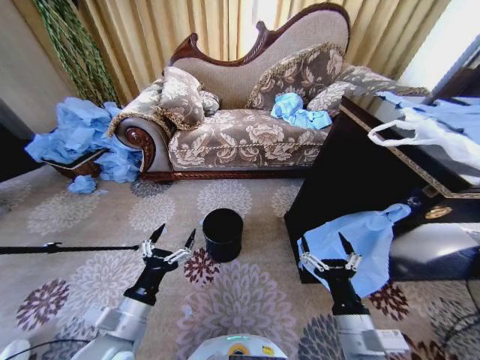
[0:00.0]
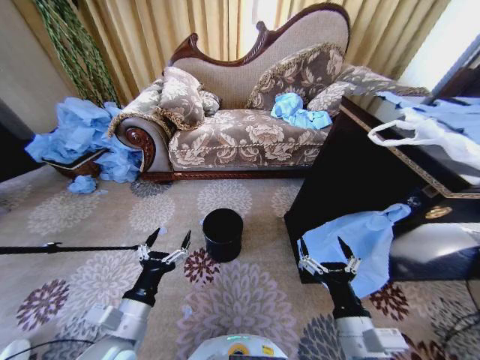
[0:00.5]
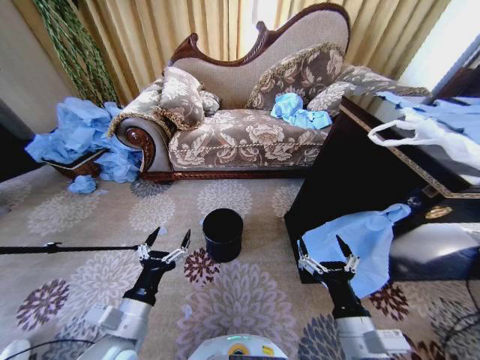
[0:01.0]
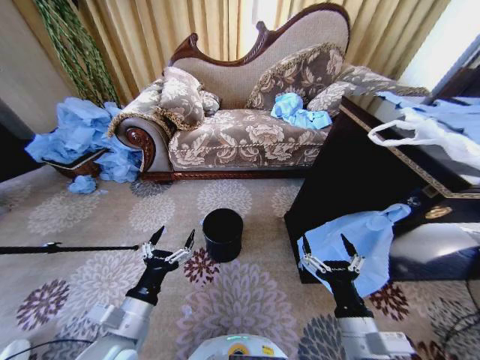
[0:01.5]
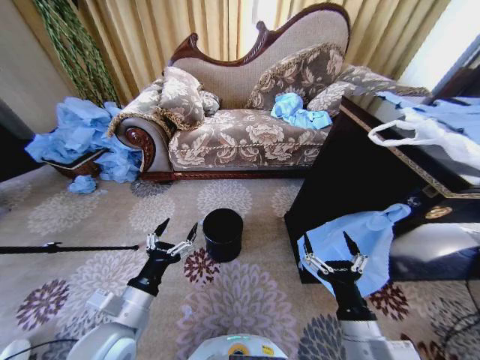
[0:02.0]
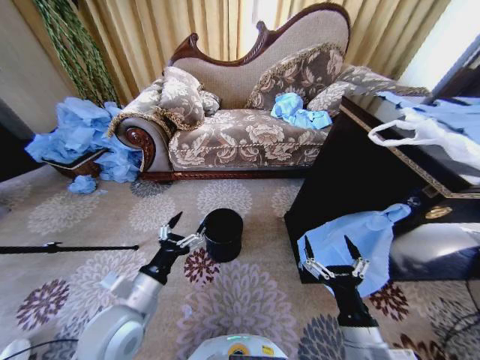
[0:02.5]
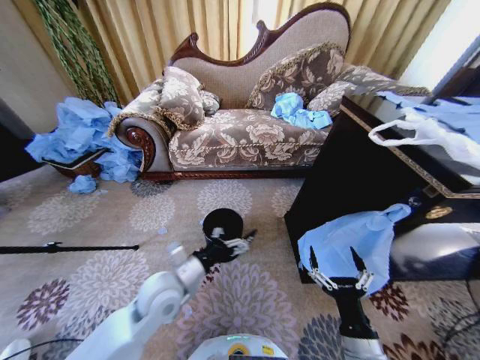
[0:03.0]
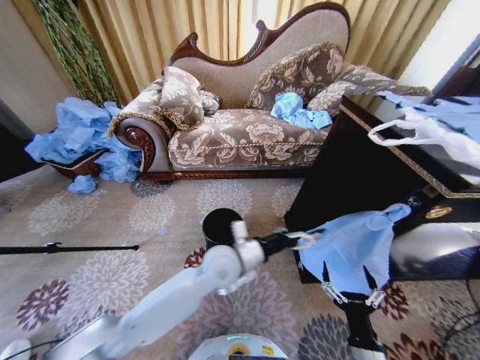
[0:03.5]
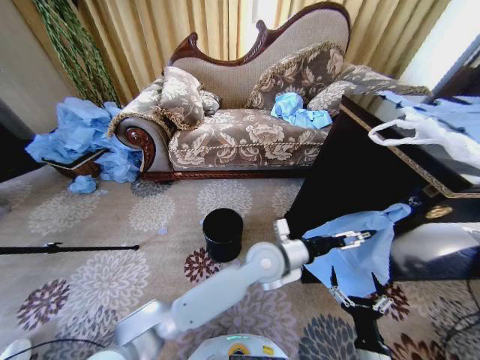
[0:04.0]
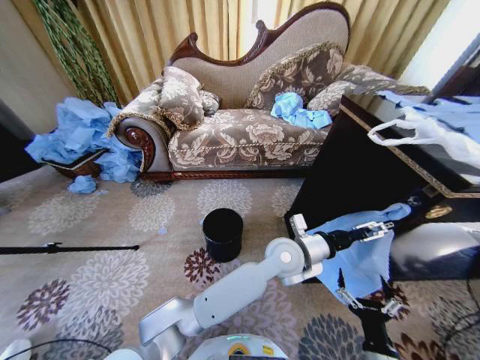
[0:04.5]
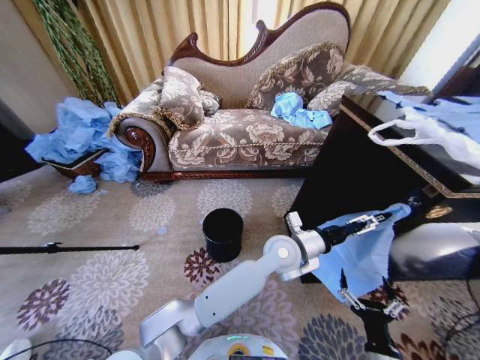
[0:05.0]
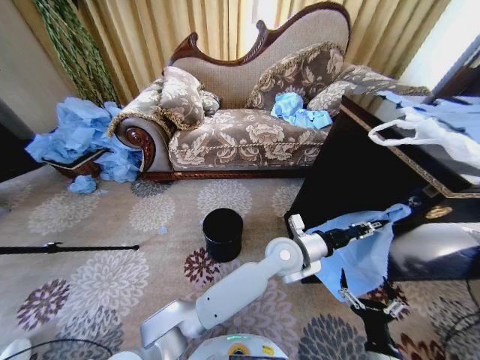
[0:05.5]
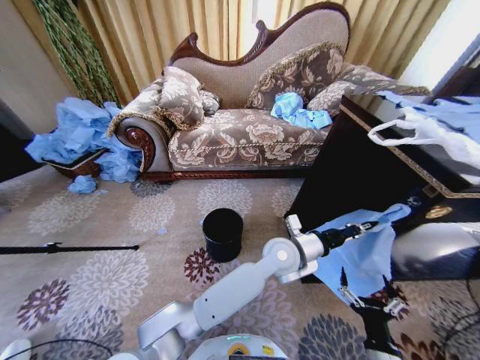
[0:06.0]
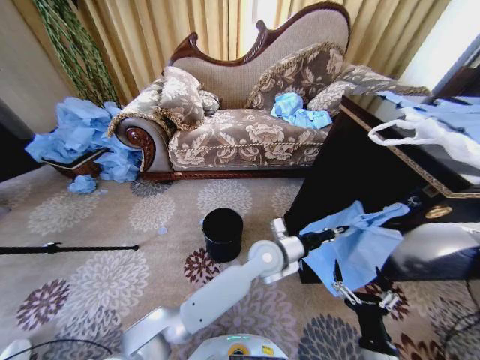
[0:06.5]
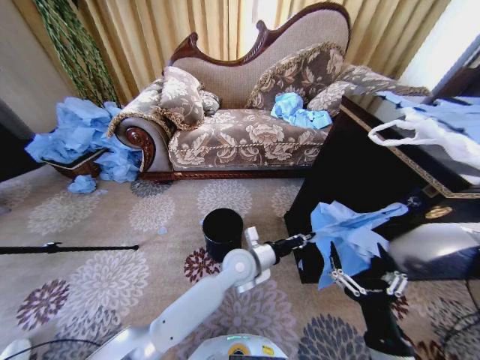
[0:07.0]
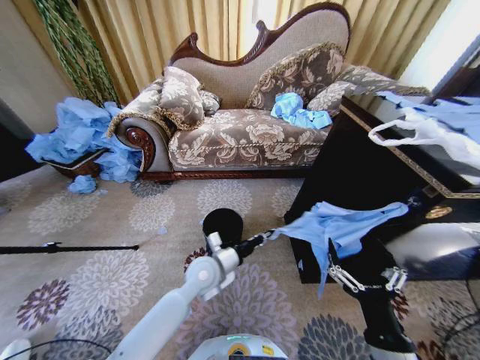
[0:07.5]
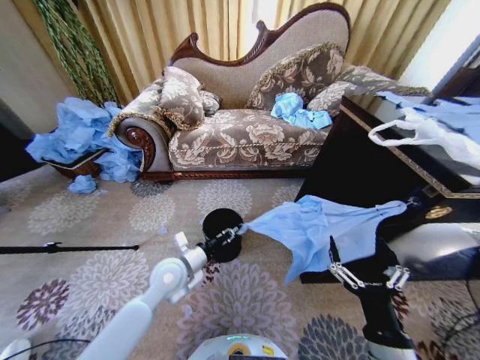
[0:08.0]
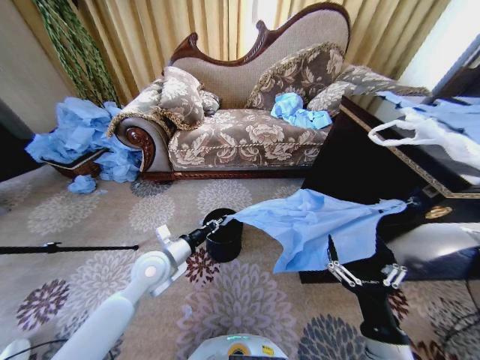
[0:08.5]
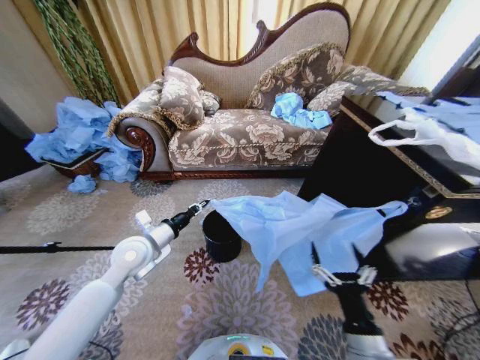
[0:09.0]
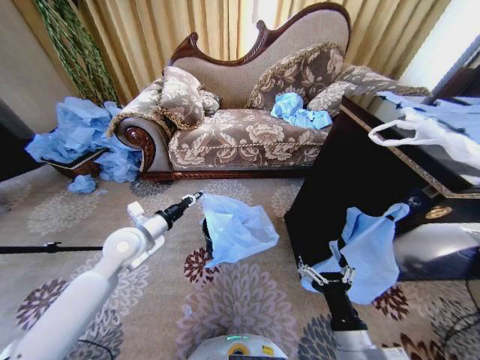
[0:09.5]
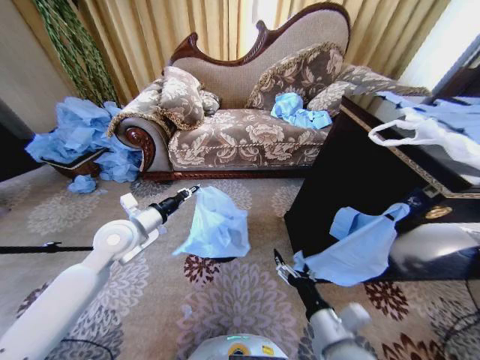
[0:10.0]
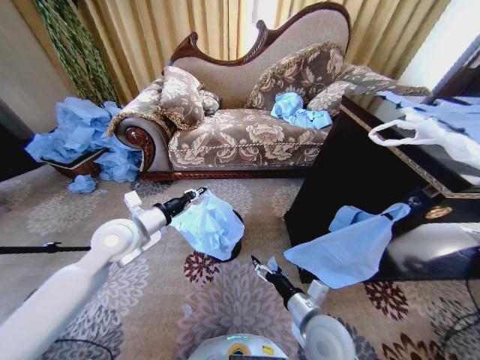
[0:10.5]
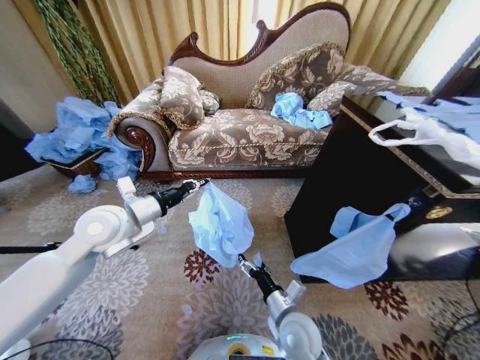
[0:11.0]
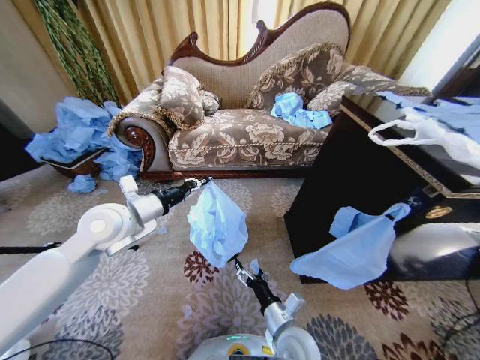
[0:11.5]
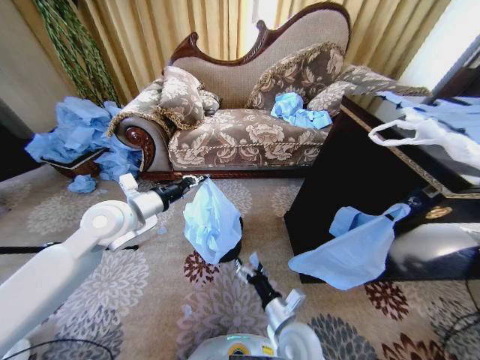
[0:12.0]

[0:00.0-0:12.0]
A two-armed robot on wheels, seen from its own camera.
Task of the whole recording: Place a garbage bag over the trash bin.
0:02.0 to 0:04.0: The left gripper is displaced to the right and forward by roughly 35 cm. The right gripper moves downward and to the right, roughly 15 cm.
0:04.0 to 0:06.0: The left gripper closes up.
0:06.0 to 0:08.0: The left gripper shifts roughly 30 cm to the left. Meanwhile the right gripper is displaced upward by some 10 cm.
0:08.0 to 0:10.0: The right gripper moves forward, about 5 cm, while the left gripper shifts roughly 15 cm to the left and upward.
0:10.0 to 0:12.0: The left gripper shifts roughly 5 cm upward, while the right gripper shifts about 15 cm downward and to the left.

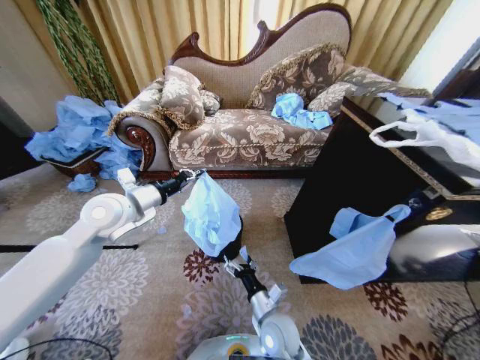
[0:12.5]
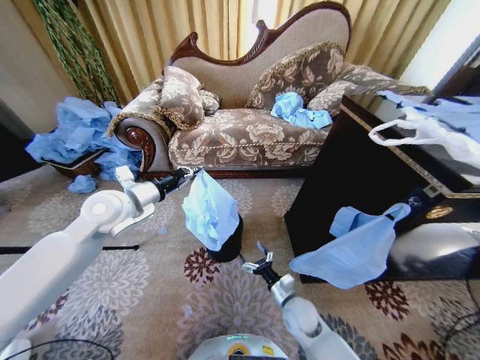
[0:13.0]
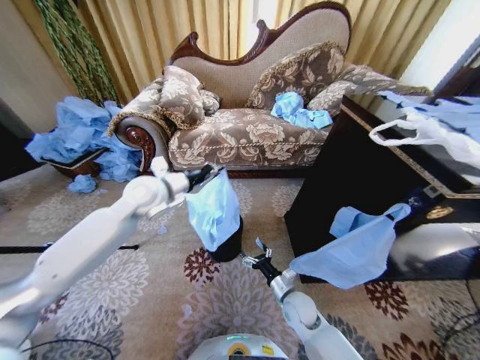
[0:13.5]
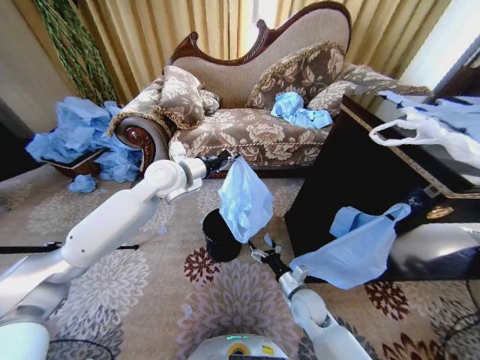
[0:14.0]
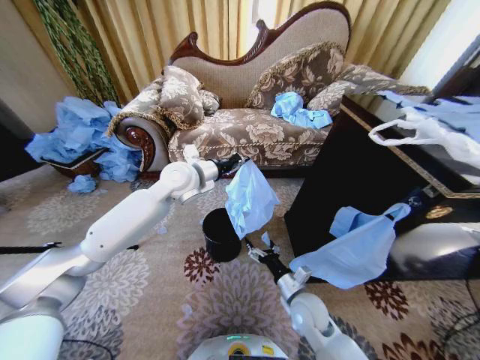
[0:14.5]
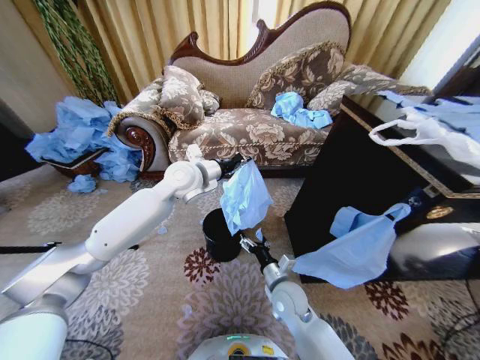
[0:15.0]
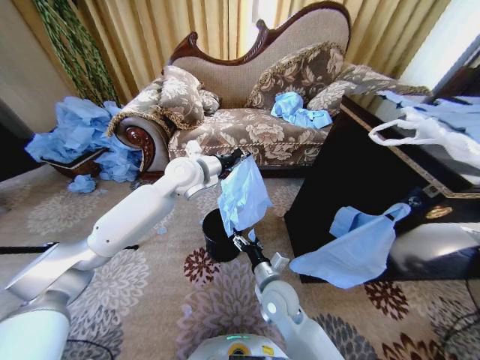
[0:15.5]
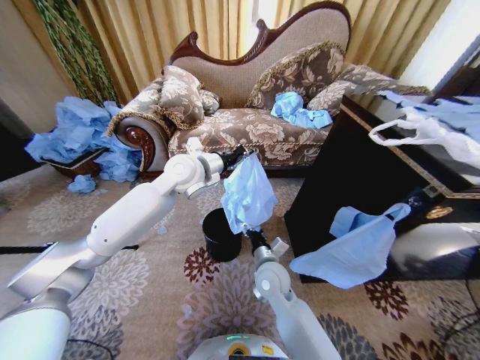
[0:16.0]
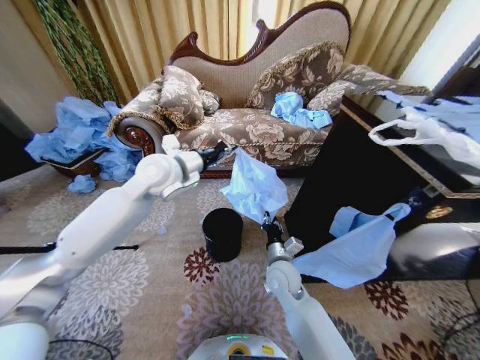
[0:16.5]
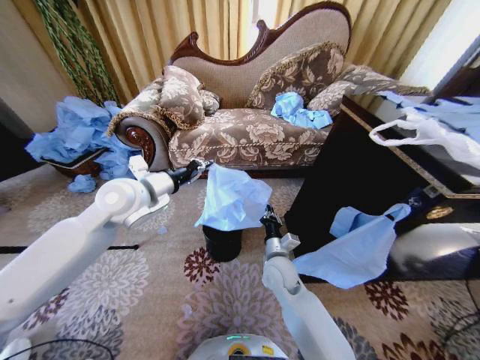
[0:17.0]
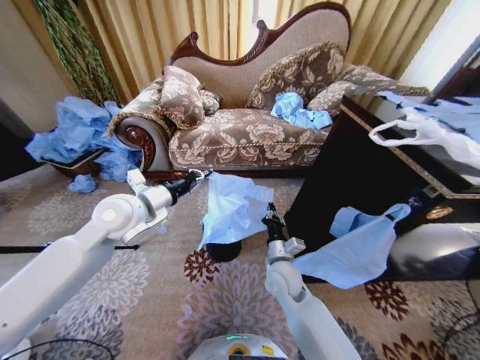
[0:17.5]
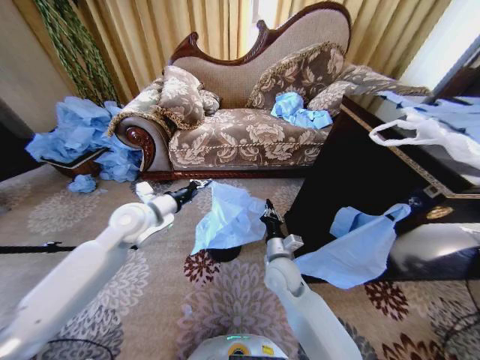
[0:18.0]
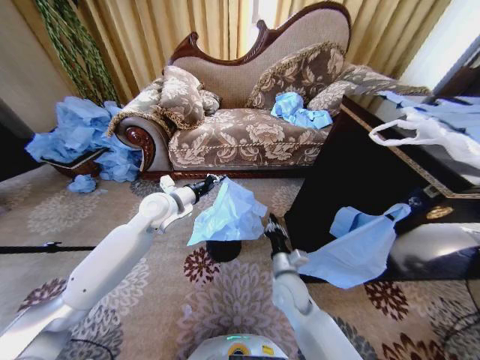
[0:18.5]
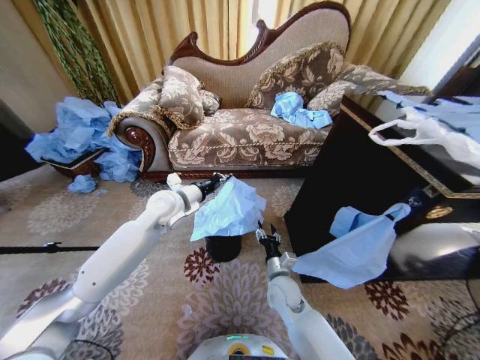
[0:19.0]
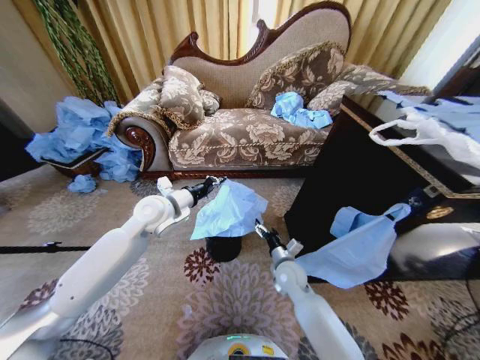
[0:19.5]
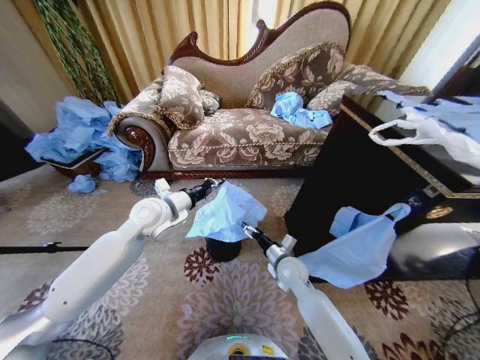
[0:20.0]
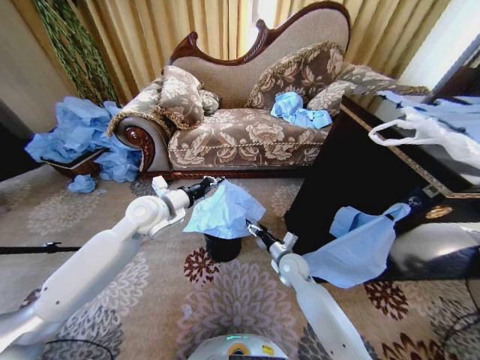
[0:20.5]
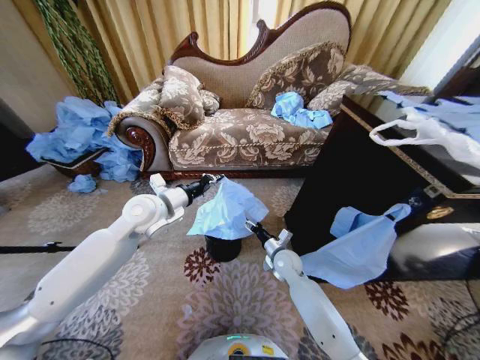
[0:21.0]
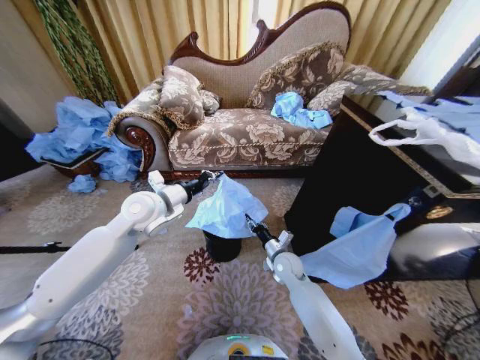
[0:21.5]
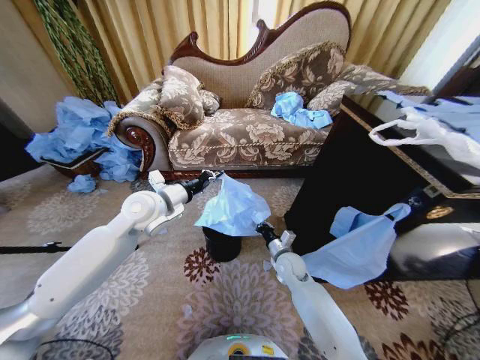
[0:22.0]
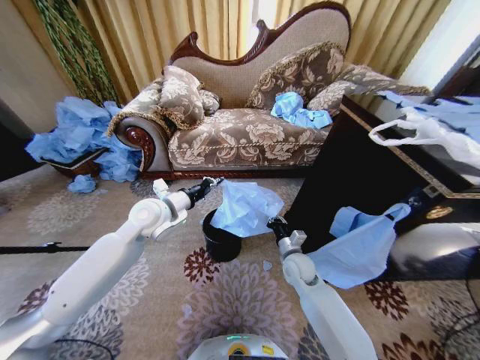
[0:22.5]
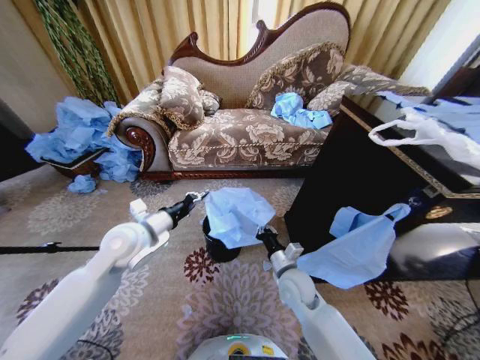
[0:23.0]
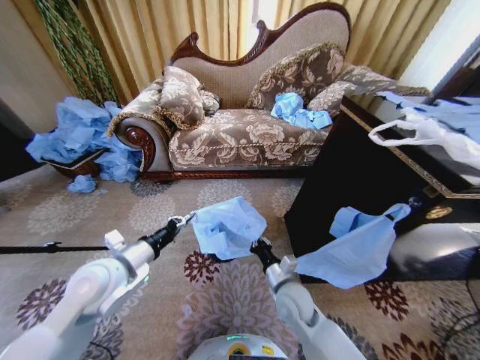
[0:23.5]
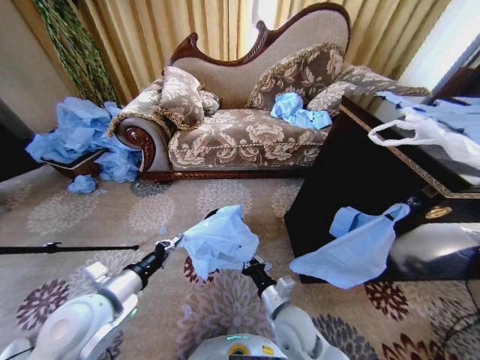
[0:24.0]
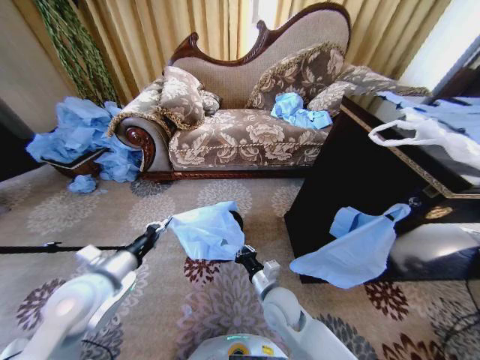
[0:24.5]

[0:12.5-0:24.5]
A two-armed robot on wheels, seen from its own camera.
Task of the whole recording: Place a garbage bag over the trash bin.
0:12.5 to 0:14.5: The left gripper heads to the right and forward, covering roughly 15 cm. The right gripper shifts roughly 10 cm to the right.
0:14.5 to 0:16.5: The right gripper is displaced to the left, forward and upward by roughly 10 cm, and closes its fingers. Meanwhile the left gripper shifts by approximately 5 cm.
0:16.5 to 0:18.5: The left gripper goes roughly 10 cm downward.
0:18.5 to 0:20.5: The right gripper travels forward by about 10 cm, and opens its fingers.
0:20.5 to 0:22.5: The right gripper closes its fingers.
0:22.5 to 0:24.5: Both grippers travel together backward and to the left, some 15 cm.

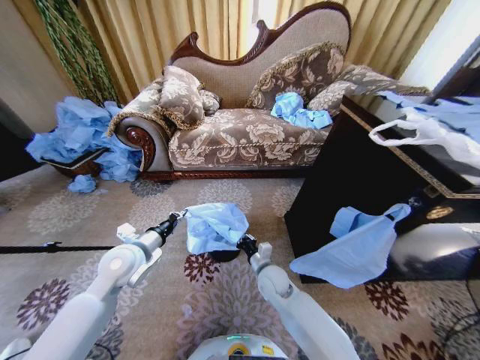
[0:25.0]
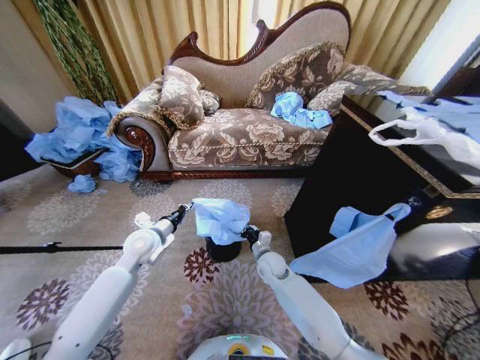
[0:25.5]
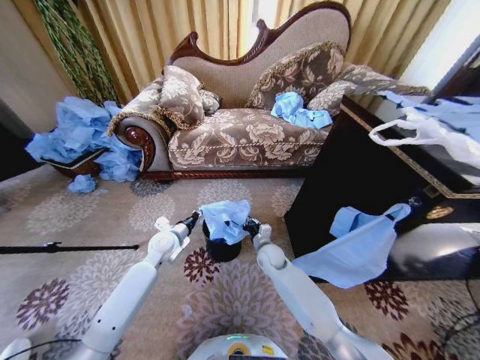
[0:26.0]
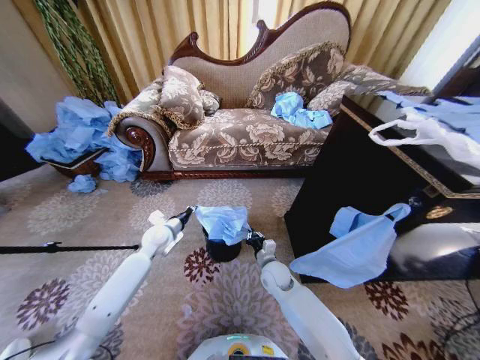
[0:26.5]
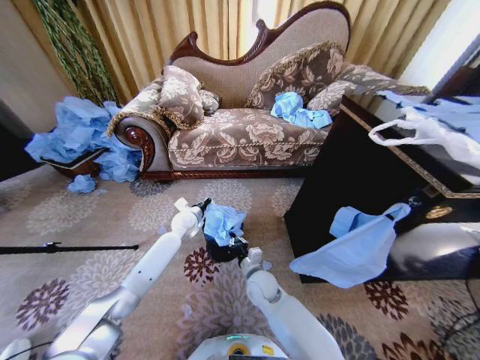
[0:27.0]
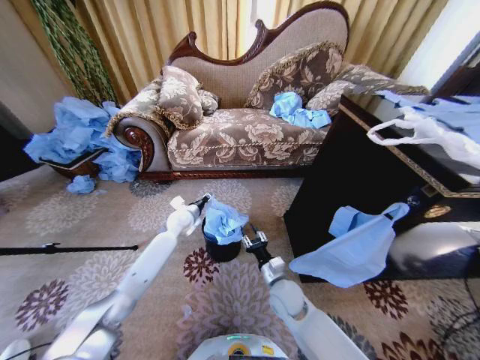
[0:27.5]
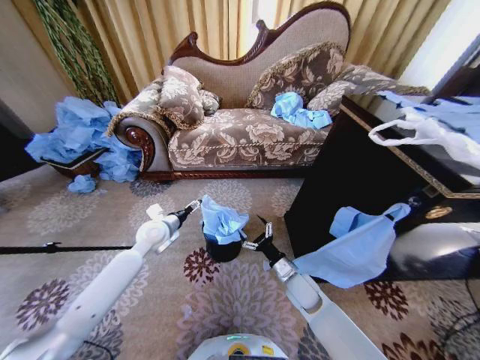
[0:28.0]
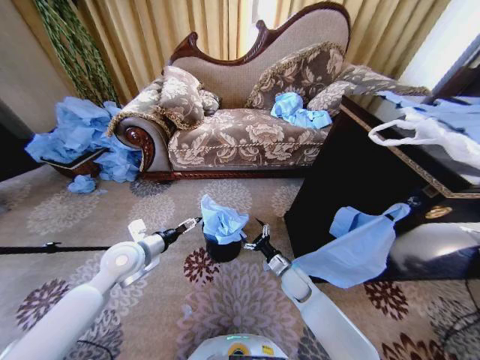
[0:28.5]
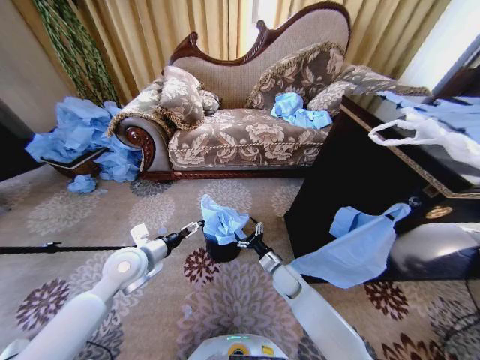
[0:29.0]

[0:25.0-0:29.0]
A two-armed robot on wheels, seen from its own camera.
Task of the whole recording: Place a garbage bag over the trash bin.
0:25.0 to 0:27.0: The left gripper goes some 20 cm forward and downward. Meanwhile the right gripper goes forward and returns, approximately 10 cm each way.
0:27.0 to 0:29.0: The right gripper heads to the right, covering about 10 cm, and opens its fingers. Meanwhile the left gripper is displaced backward by approximately 20 cm, and opens its fingers.
